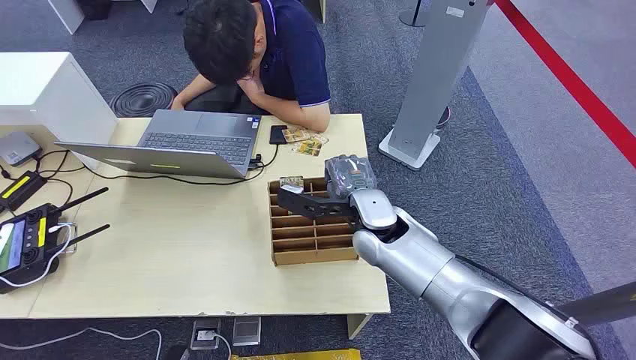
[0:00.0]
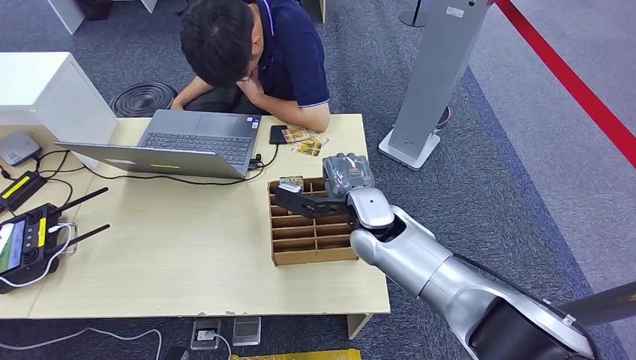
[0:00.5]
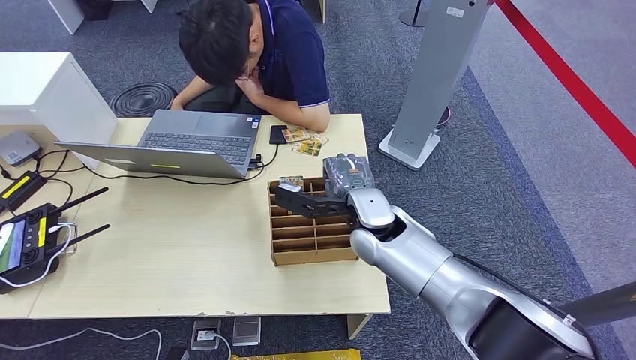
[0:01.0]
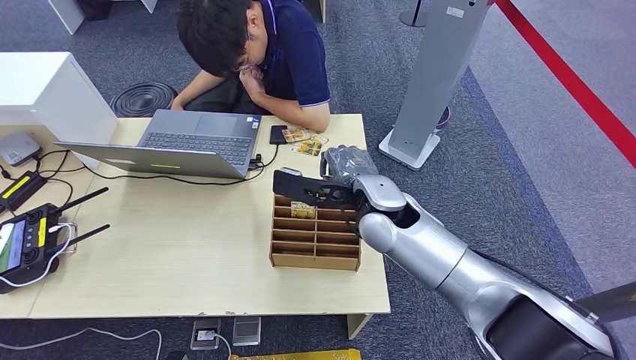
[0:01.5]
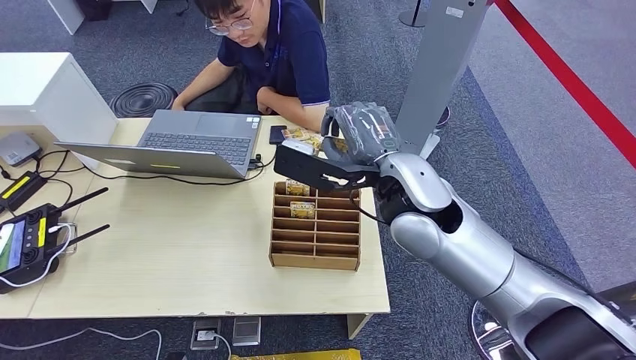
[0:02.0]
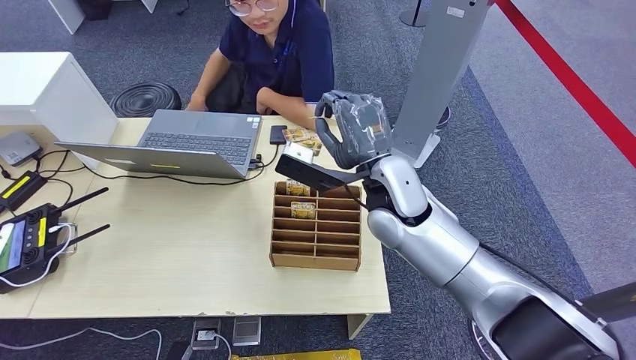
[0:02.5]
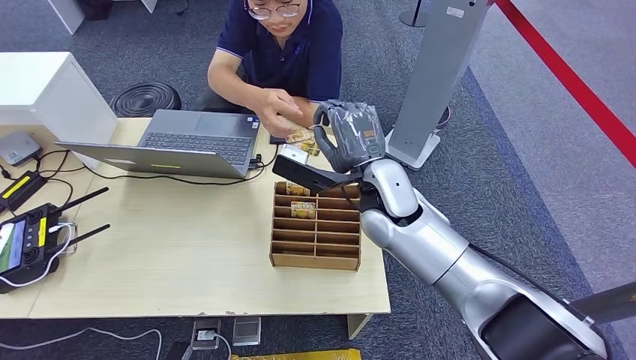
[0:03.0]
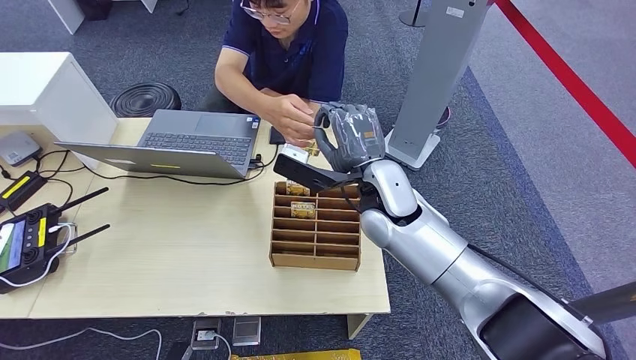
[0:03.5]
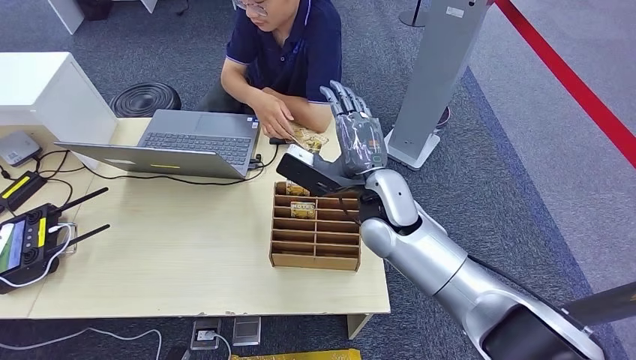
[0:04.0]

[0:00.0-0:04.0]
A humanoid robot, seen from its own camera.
Step, 0:00.0 to 0:01.5: Pick up the key card from the card box.
Step, 0:02.5 to 0:04.0: Hand the key card to the target.
0:02.0 to 0:04.0: The right hand heads downward, covering roughly 10 cm.
